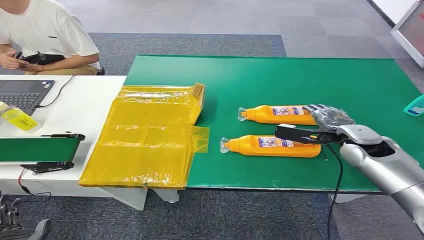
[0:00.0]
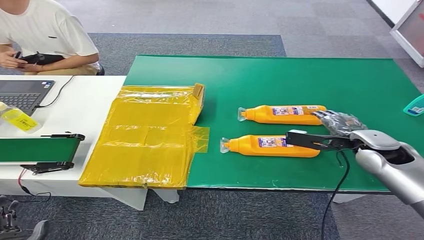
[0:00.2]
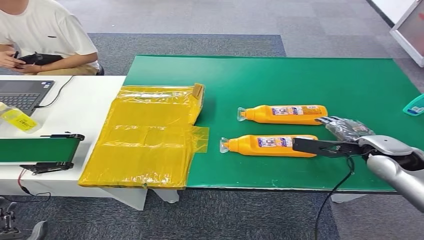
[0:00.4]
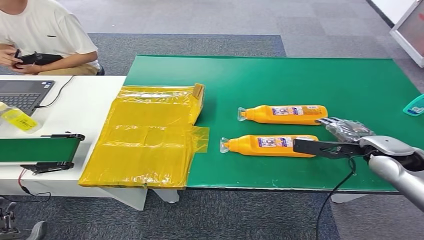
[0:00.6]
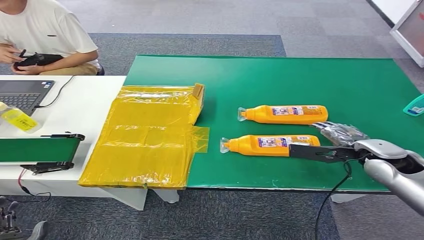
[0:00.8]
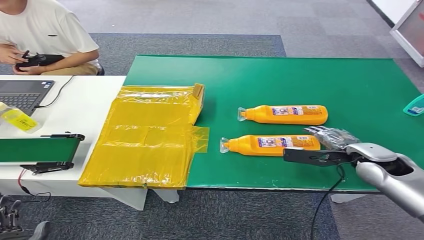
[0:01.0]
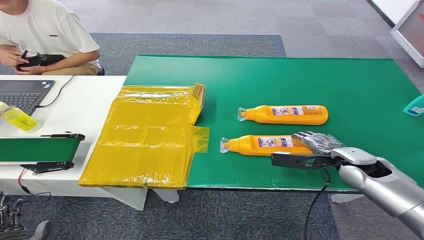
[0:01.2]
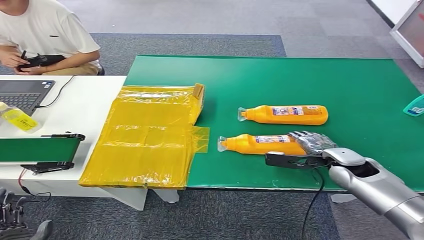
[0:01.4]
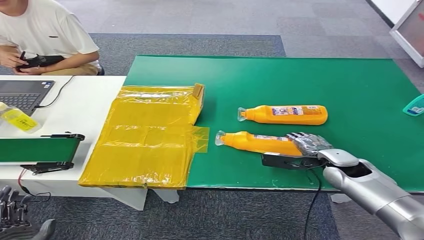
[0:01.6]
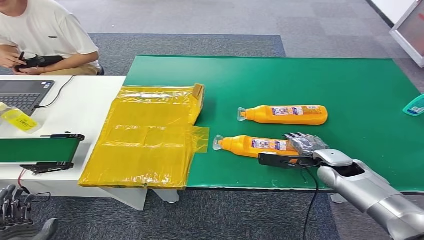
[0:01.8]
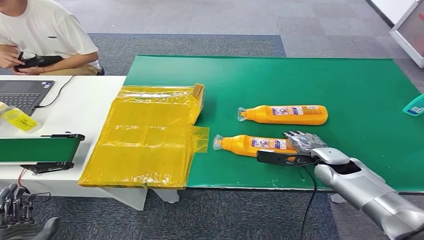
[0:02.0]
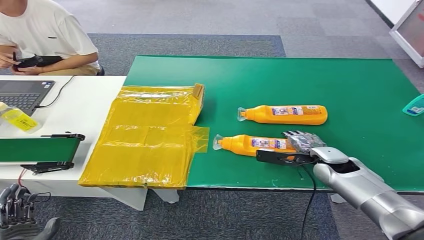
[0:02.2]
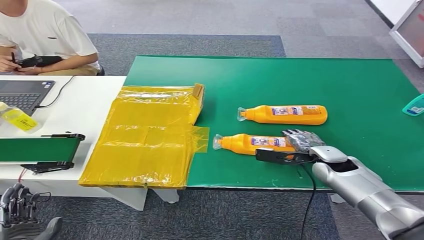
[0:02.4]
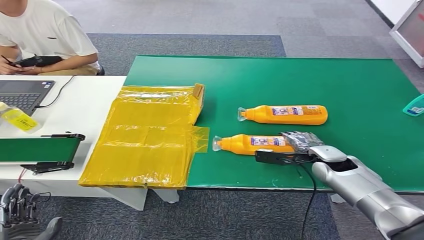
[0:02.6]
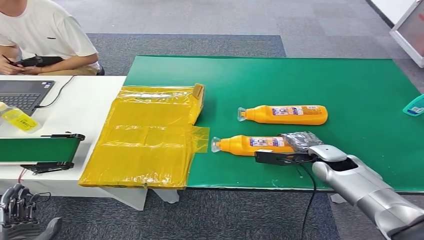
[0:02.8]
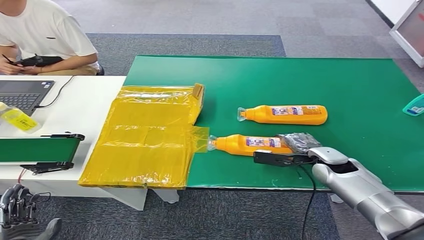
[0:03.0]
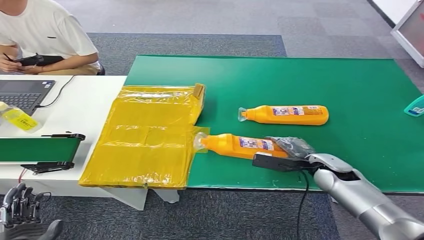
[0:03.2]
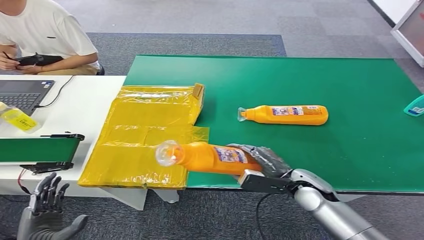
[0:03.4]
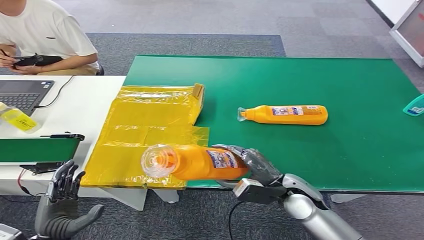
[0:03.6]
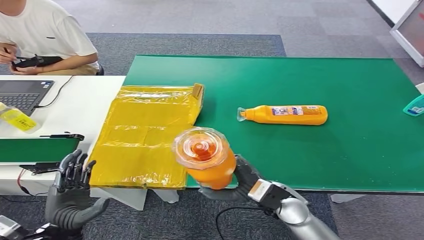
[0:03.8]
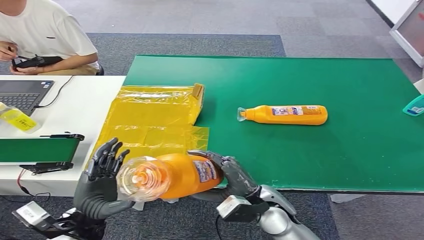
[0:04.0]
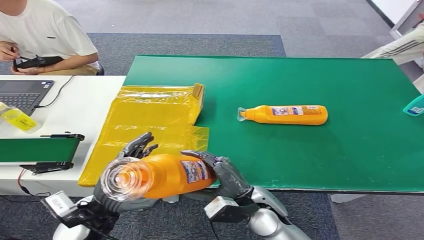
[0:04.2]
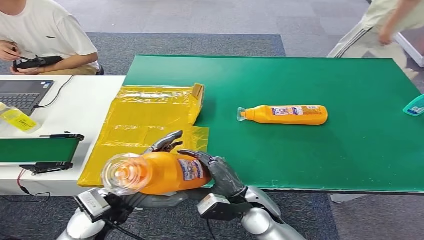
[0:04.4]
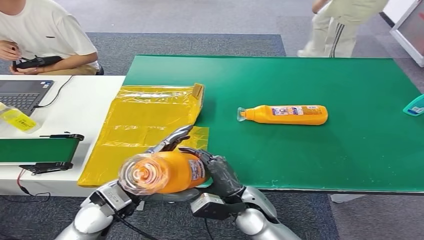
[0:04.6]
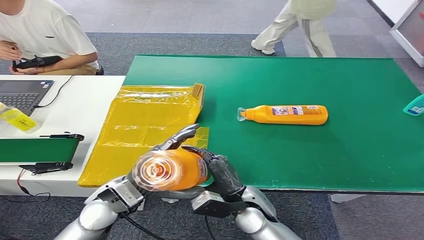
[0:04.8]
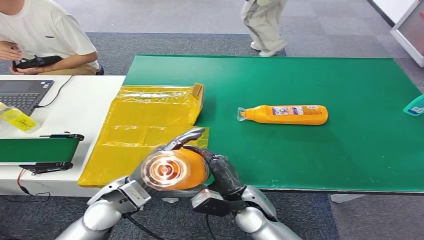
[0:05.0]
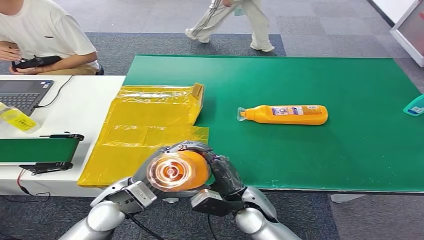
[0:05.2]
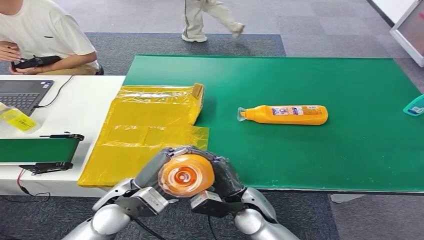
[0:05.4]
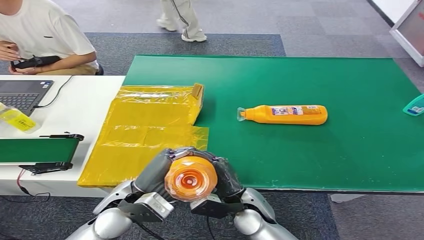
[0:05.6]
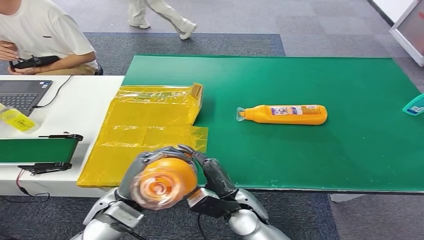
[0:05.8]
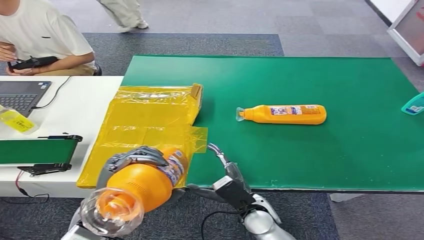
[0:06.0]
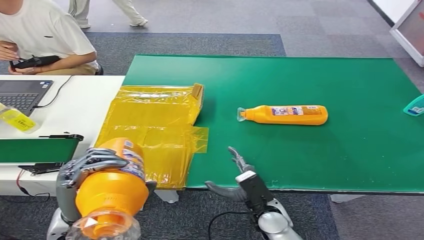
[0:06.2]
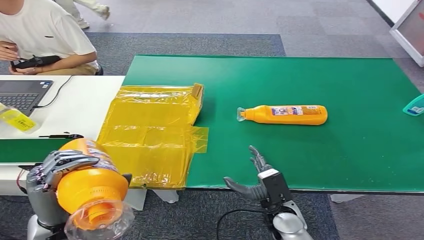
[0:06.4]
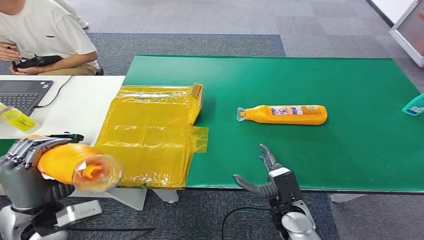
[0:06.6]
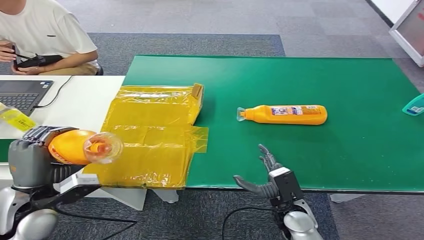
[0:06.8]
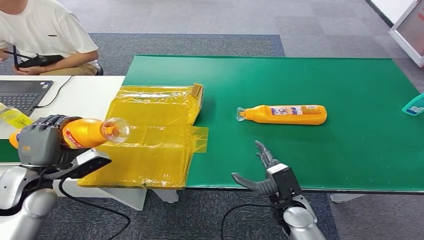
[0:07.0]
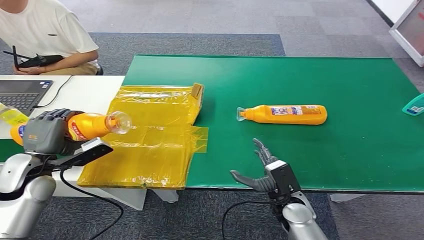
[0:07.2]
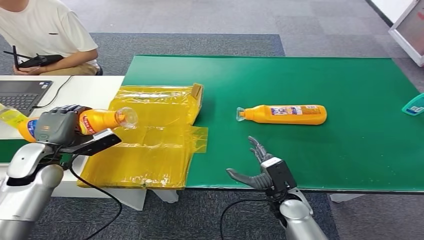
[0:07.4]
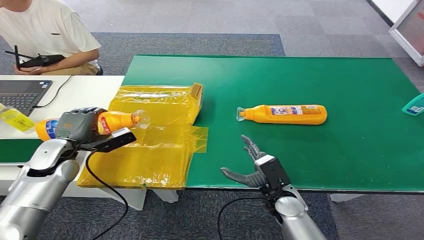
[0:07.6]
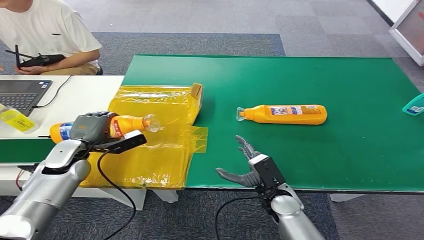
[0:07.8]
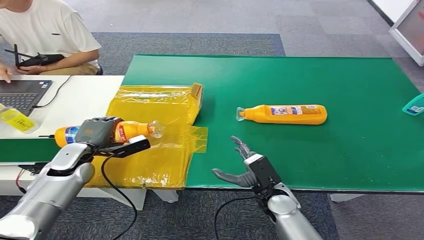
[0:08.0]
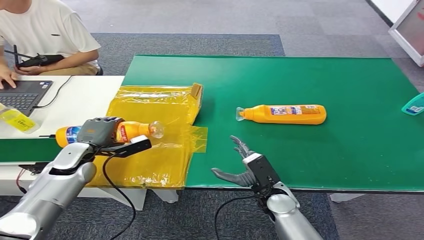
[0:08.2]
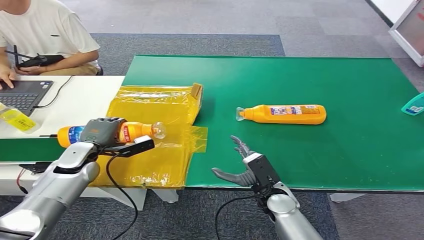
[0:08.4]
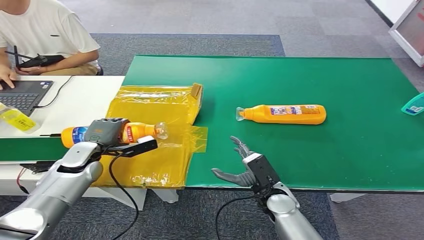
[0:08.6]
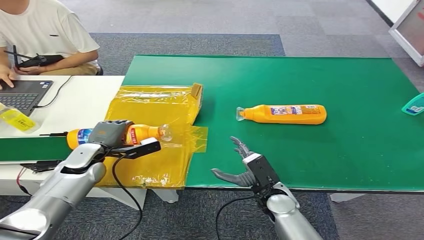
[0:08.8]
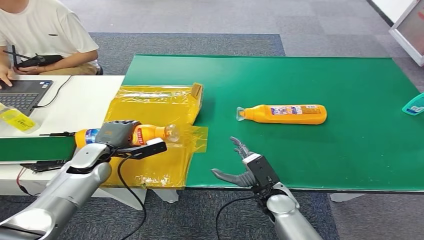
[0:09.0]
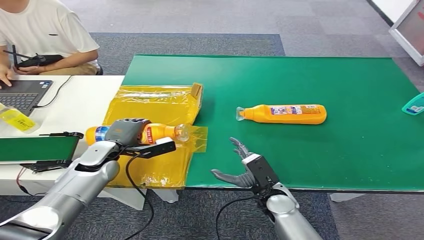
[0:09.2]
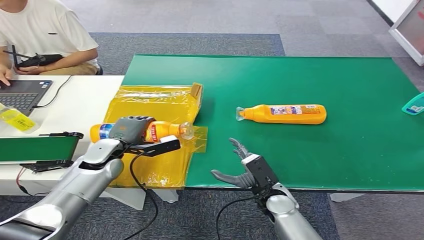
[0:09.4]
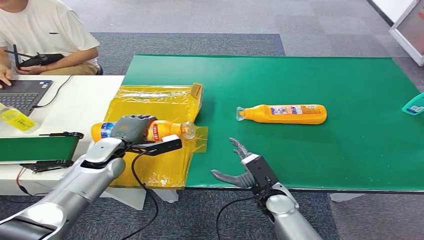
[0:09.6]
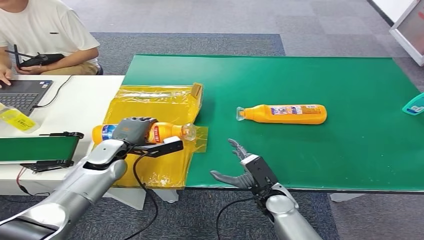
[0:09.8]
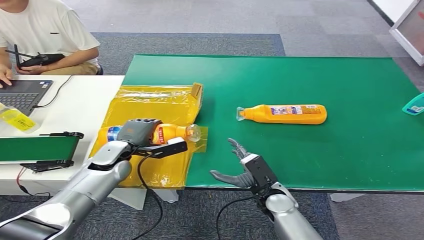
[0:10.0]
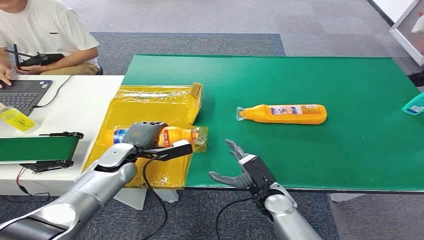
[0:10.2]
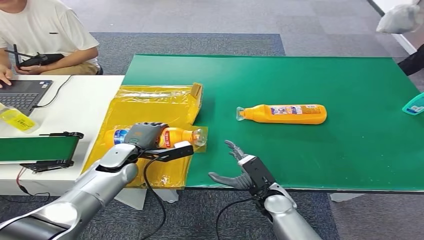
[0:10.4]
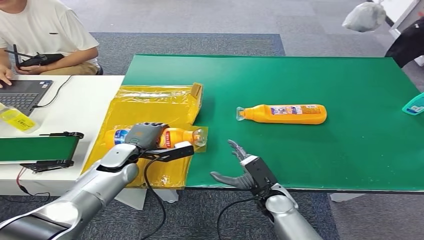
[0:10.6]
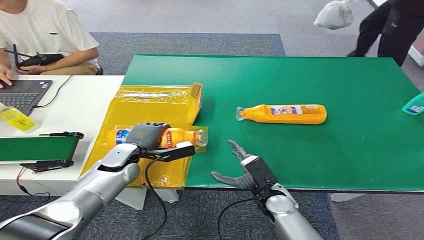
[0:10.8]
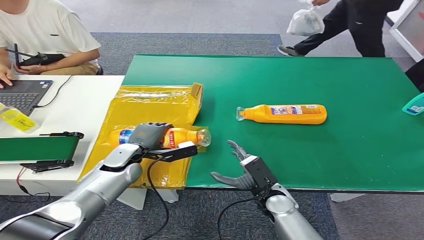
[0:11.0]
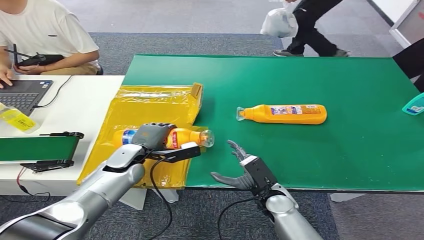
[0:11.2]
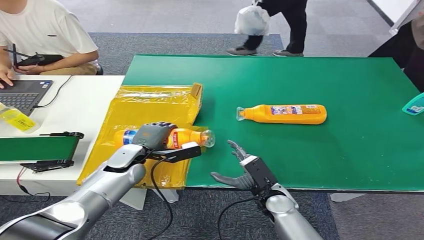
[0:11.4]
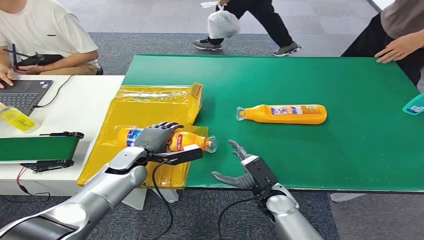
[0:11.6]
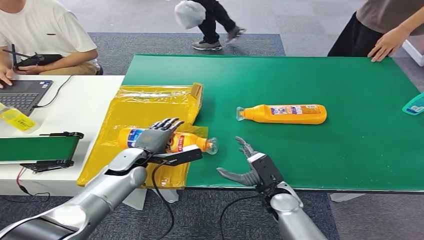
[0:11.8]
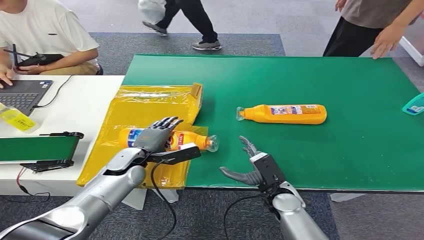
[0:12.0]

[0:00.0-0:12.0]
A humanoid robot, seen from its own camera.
Step, 0:00.0 to 0:03.8: Pick up the bottle from the table.
0:01.6 to 0:03.0: The hands make only small movements.
0:07.6 to 0:09.0: The left hand shifts approximately 5 cm to the right.
0:09.0 to 0:10.4: The left hand moves to the right, approximately 5 cm.
0:10.4 to 0:12.0: The hands stay close to where they were, moving slightly.

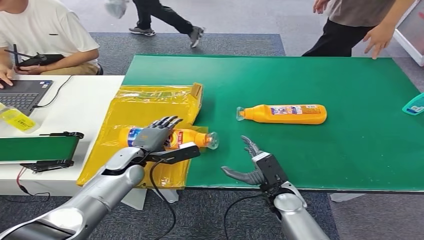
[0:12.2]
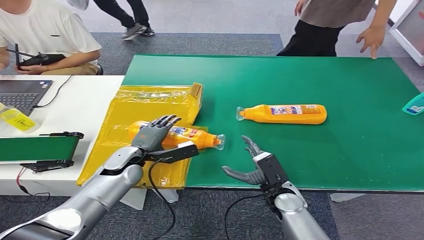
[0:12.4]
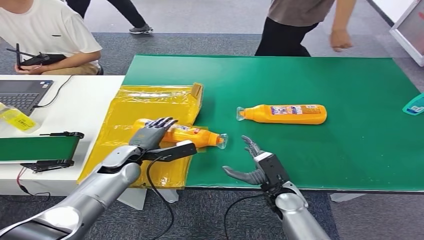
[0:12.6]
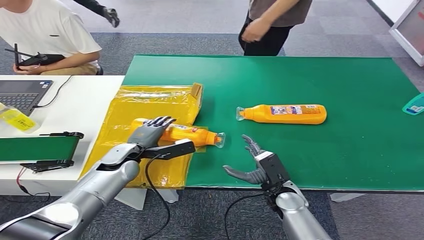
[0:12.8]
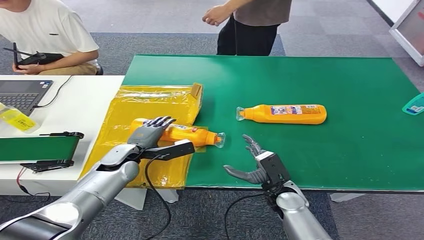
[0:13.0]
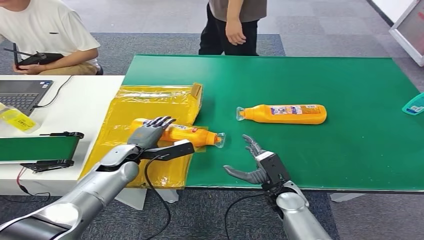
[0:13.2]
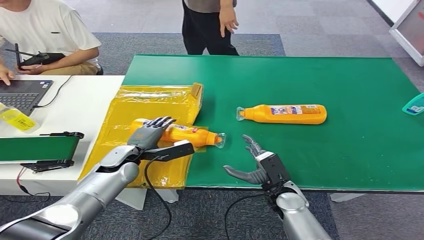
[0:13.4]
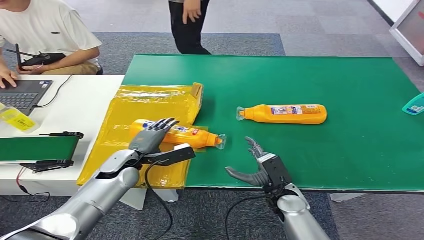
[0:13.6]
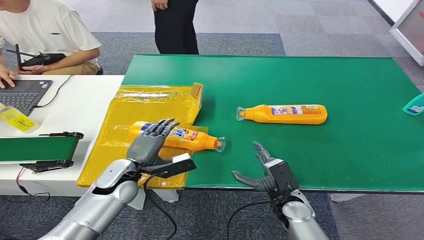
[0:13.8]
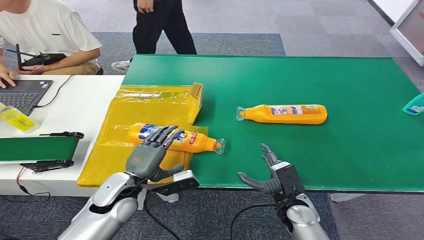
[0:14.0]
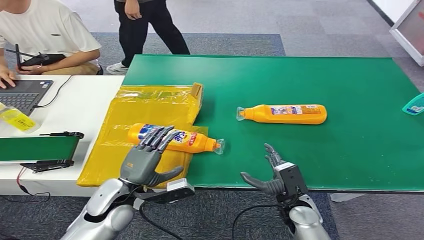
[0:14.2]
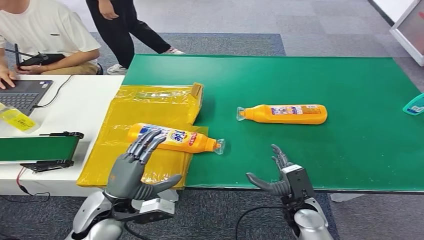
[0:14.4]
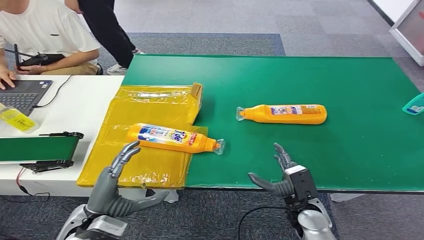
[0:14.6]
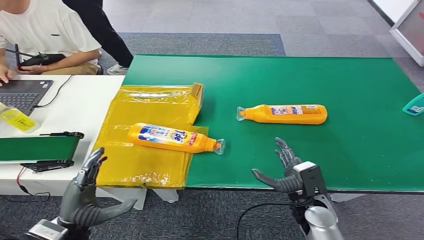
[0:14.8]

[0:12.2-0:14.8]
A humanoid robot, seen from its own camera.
Step, 0:12.2 to 0:14.8: Turn the bottle to the front side.
0:12.2 to 0:13.4: The hands make only small movements.
0:13.4 to 0:14.8: The left hand goes some 20 cm backward, while the right hand heads to the right, covering about 5 cm.

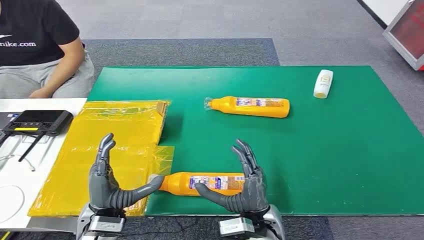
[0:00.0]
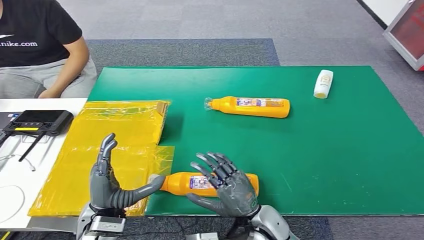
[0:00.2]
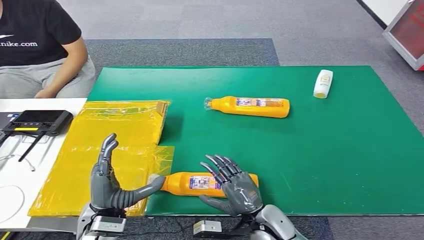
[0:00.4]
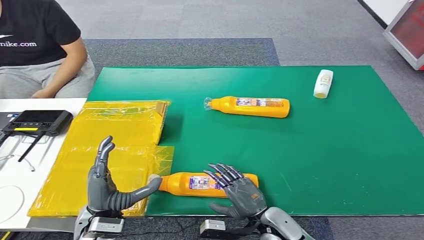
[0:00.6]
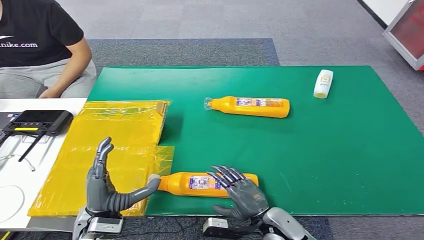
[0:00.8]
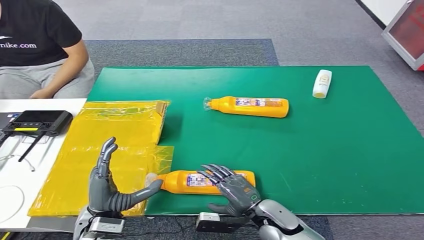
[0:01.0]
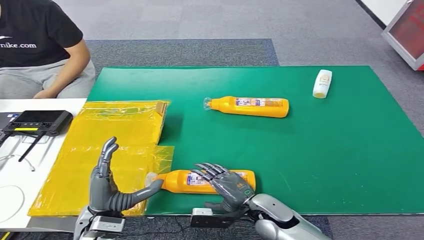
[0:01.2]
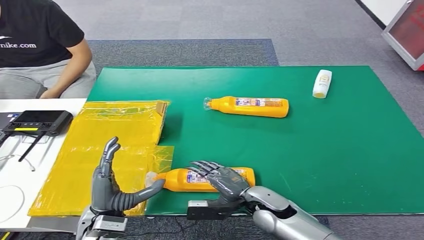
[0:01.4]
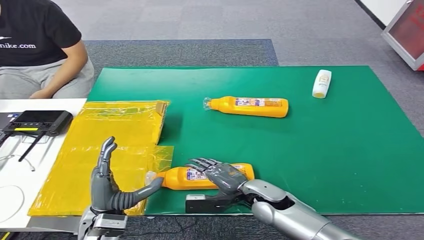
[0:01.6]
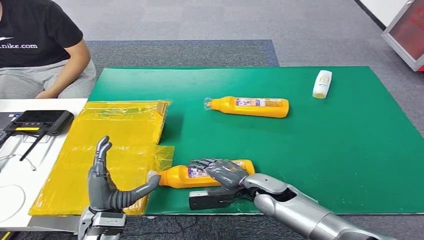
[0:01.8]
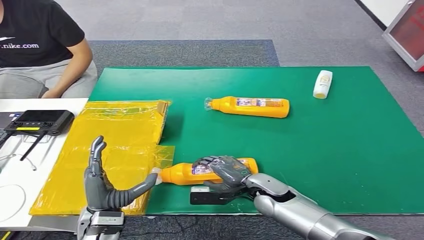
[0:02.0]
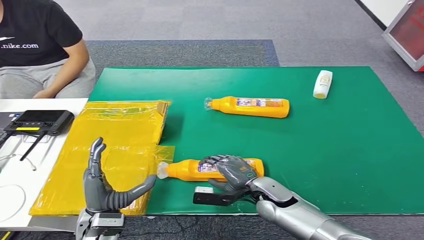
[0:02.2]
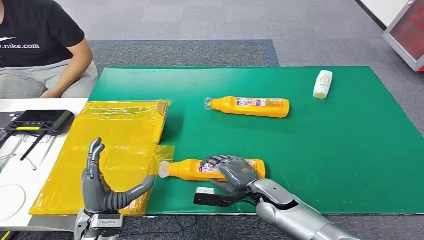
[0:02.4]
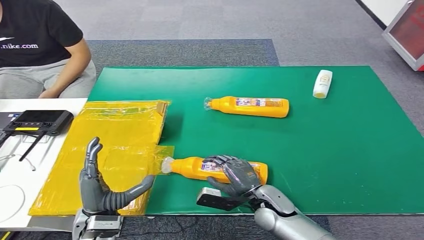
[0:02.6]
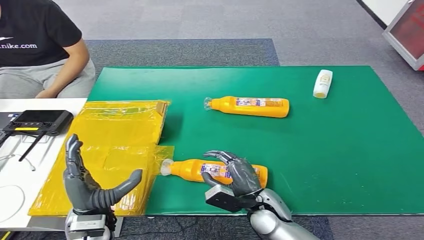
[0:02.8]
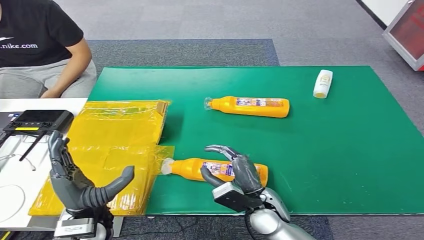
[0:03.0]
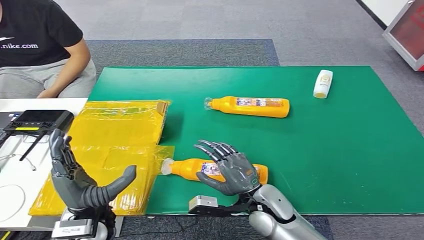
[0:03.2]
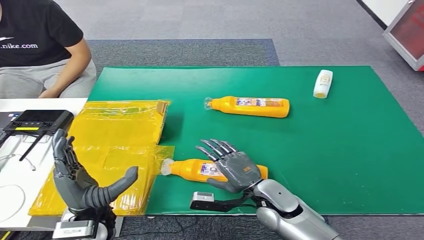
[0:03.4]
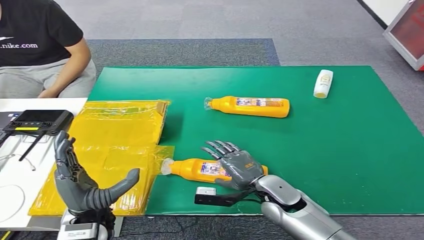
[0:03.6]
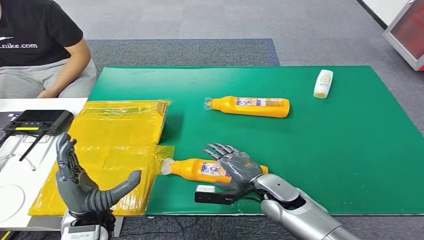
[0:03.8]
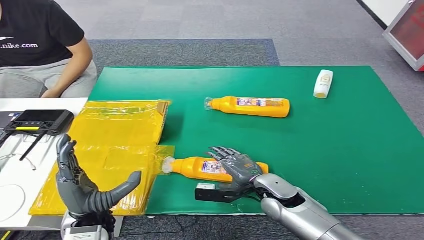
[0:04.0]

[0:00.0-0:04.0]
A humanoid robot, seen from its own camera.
0:01.4 to 0:02.6: The hands make only small movements.
